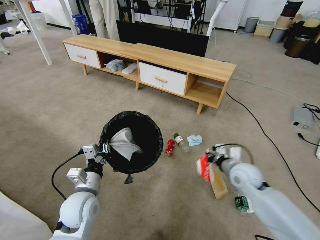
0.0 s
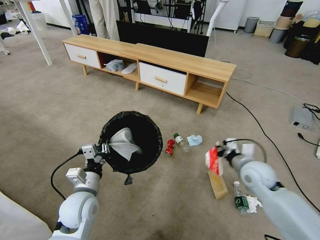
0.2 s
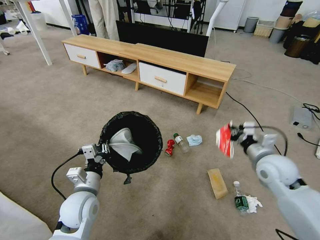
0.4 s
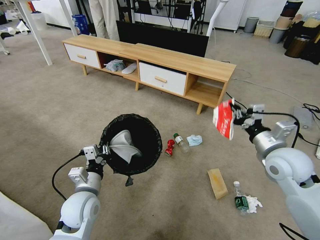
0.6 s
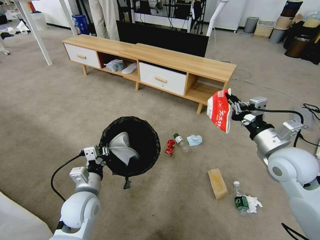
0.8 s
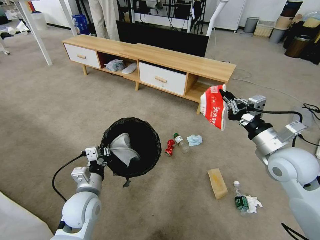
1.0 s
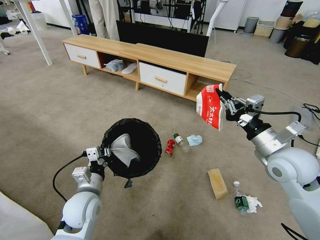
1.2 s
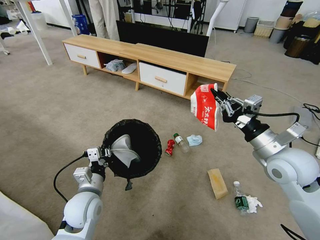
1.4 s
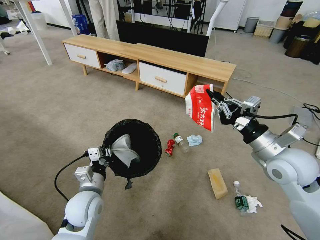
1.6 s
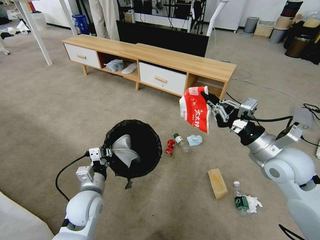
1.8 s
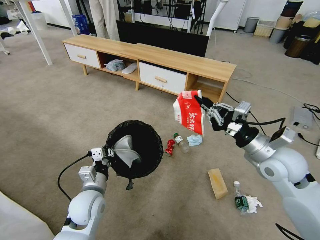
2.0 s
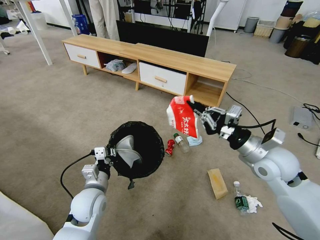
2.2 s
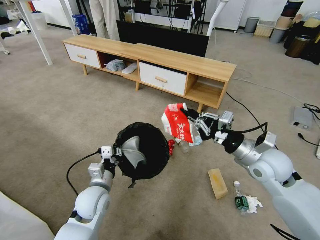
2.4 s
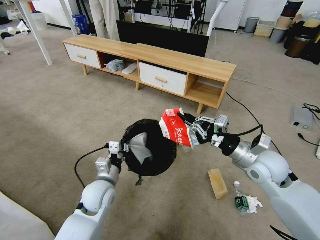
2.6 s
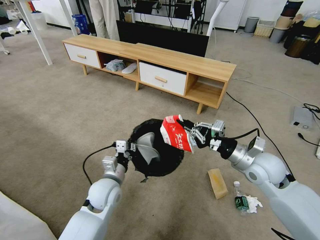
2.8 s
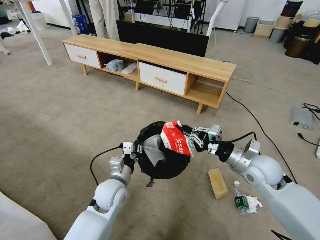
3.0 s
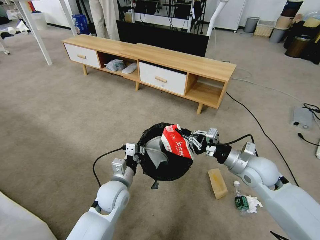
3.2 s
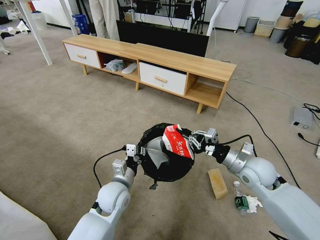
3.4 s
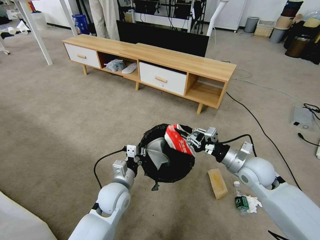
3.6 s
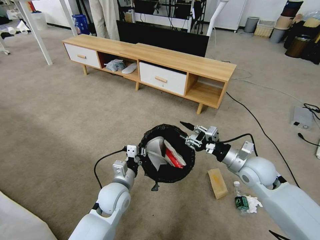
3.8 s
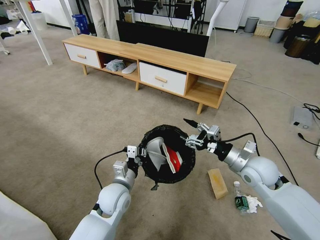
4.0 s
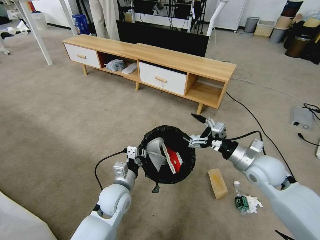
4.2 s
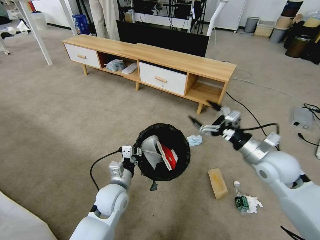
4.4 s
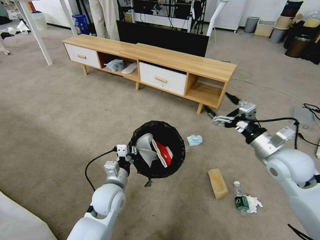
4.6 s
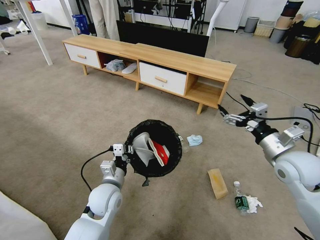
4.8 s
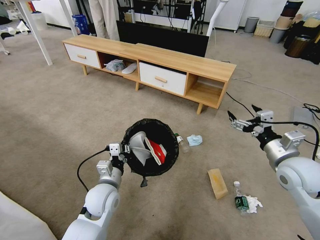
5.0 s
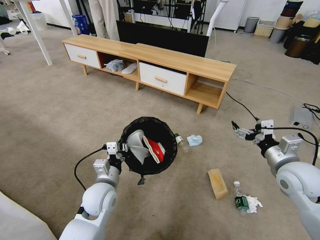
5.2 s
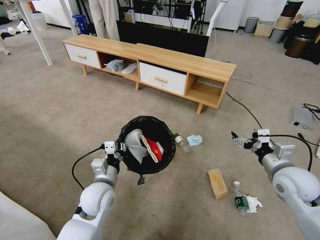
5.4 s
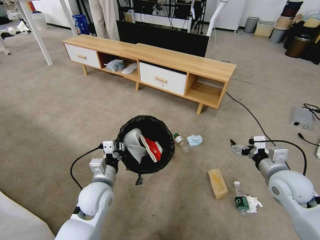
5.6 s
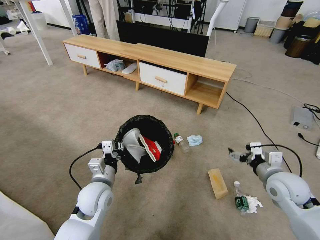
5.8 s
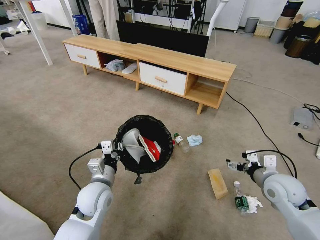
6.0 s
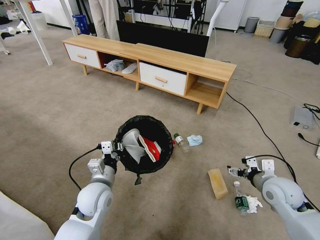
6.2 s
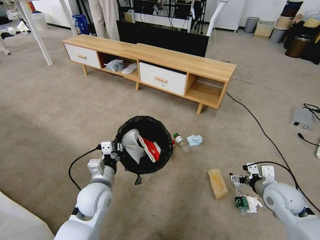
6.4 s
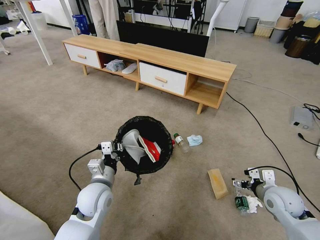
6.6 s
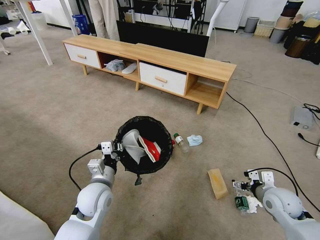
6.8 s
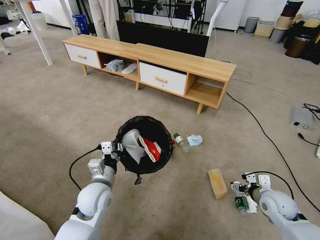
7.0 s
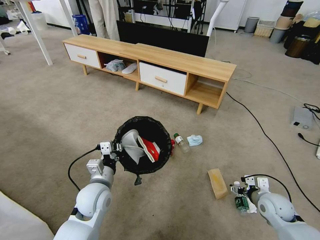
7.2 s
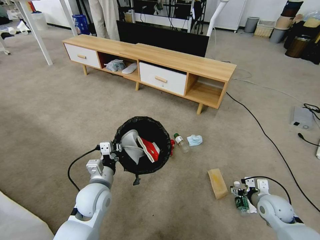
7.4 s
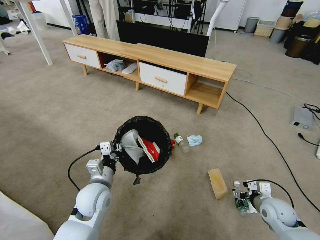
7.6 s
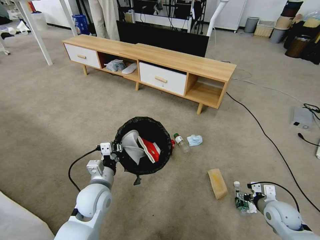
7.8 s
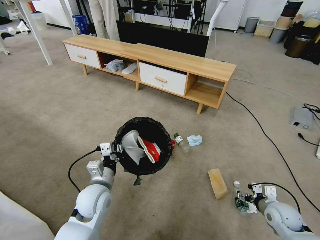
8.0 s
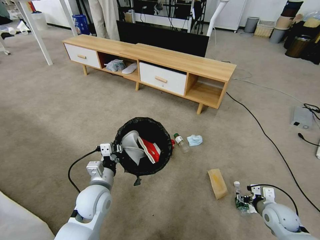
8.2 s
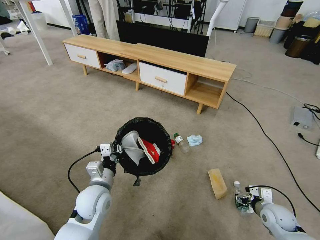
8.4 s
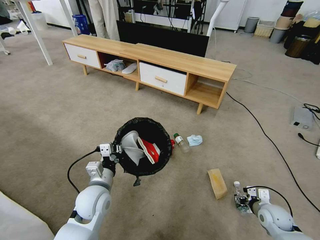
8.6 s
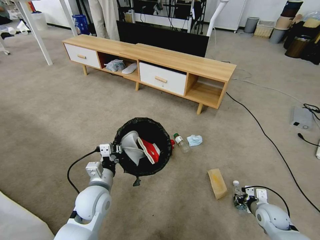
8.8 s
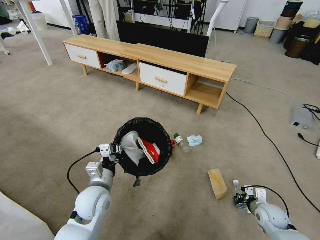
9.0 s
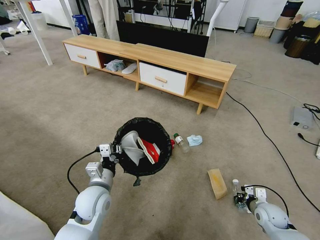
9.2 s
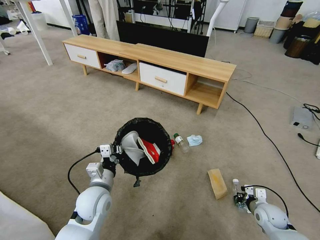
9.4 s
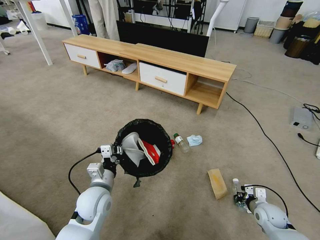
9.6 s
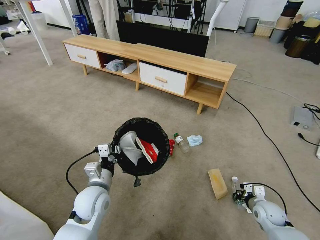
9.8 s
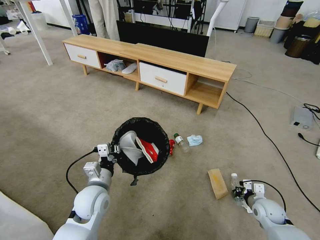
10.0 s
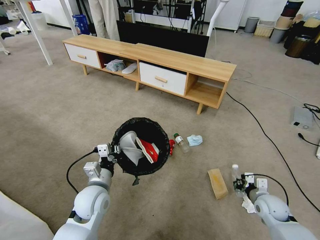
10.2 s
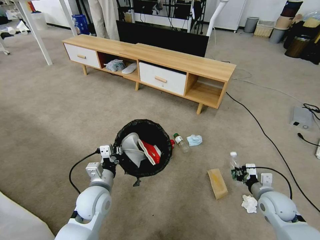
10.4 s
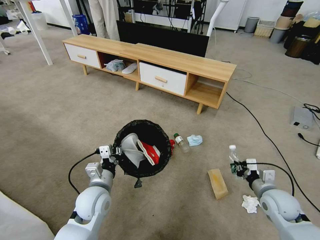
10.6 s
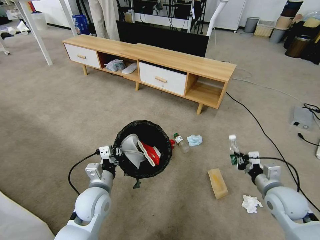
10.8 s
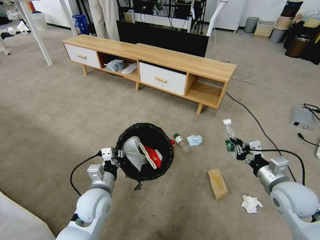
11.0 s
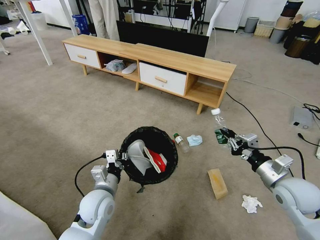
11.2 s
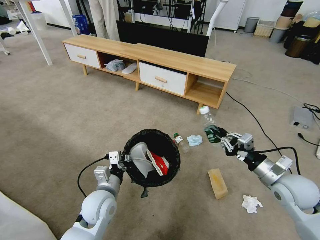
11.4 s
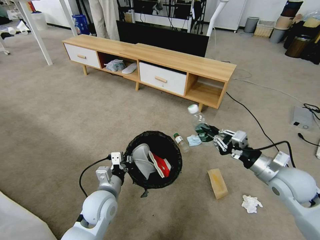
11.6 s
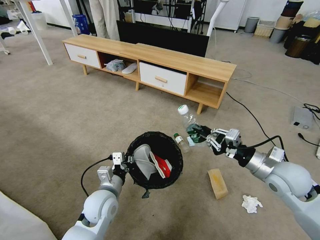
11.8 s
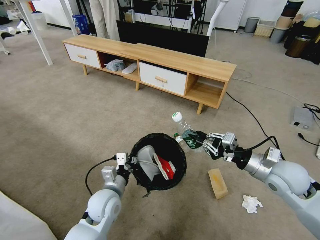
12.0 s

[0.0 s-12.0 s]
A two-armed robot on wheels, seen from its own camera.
Task of the whole recording: Pick up the trash bin and place the garbage on the floor into it.
0.0 to 1.6 s: The right gripper shifts roughly 15 cm upward.
1.6 to 3.0 s: The left gripper travels to the right by some 5 cm, while the right gripper goes about 10 cm downward.
3.0 to 4.4 s: The right gripper opens its fingers.
4.4 to 6.0 s: The right gripper moves downward, roughly 5 cm. Meanwhile the left gripper shifts by some 5 cm.
6.0 to 7.6 s: The right gripper moves downward, approximately 15 cm.
7.6 to 9.0 s: The right gripper shifts some 5 cm downward, and closes.
9.0 to 10.4 s: The right gripper goes approximately 5 cm upward.
10.4 to 12.0 s: The right gripper goes approximately 15 cm upward.

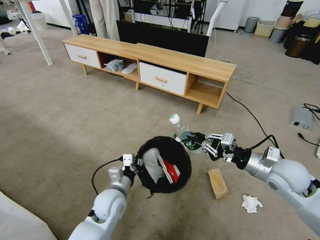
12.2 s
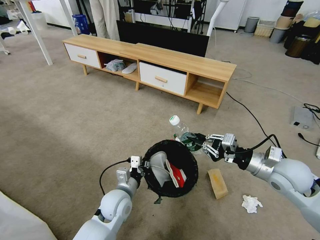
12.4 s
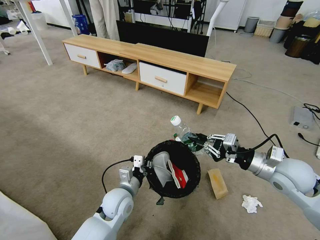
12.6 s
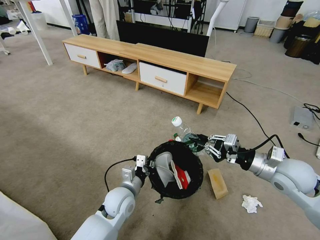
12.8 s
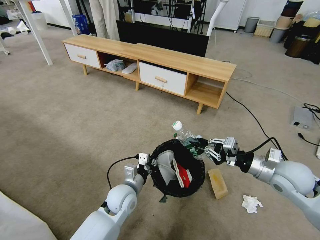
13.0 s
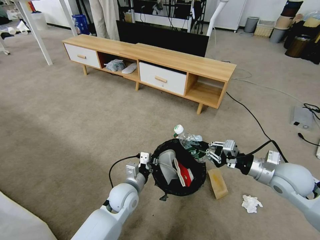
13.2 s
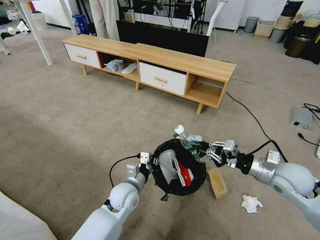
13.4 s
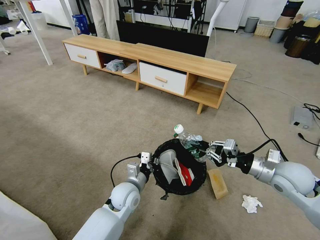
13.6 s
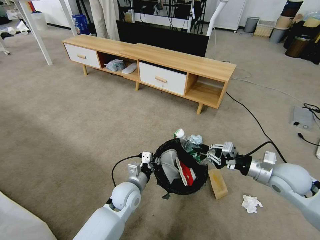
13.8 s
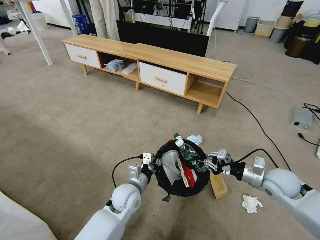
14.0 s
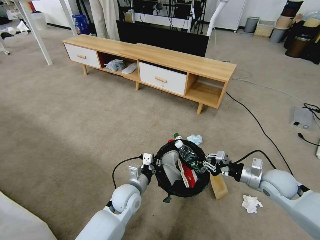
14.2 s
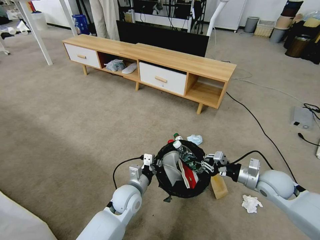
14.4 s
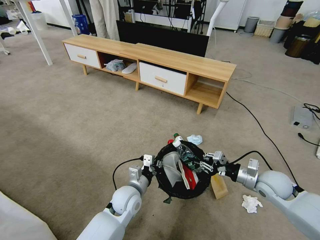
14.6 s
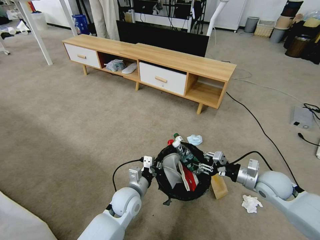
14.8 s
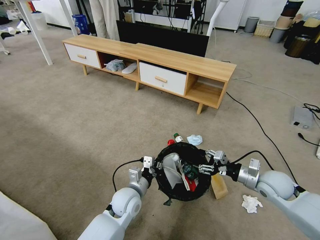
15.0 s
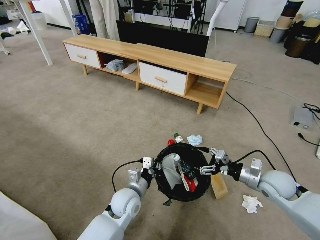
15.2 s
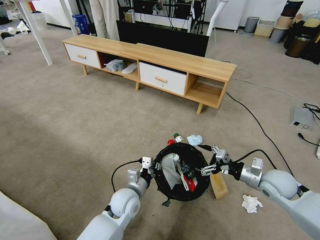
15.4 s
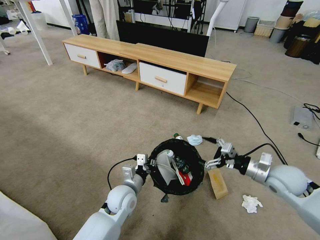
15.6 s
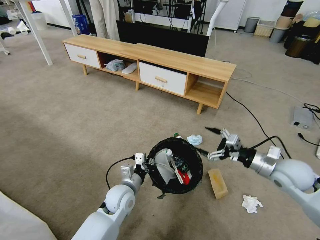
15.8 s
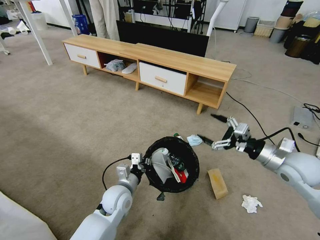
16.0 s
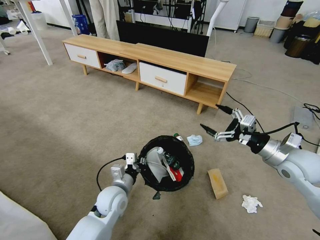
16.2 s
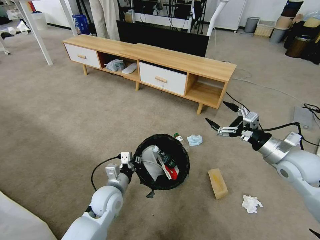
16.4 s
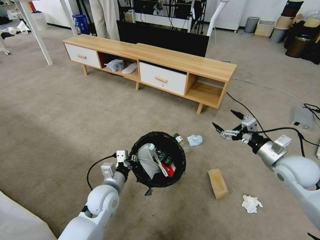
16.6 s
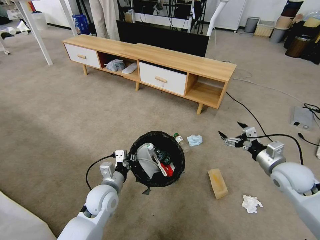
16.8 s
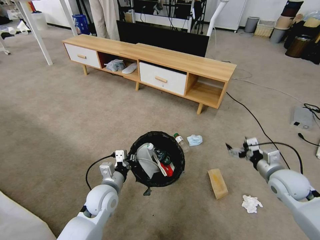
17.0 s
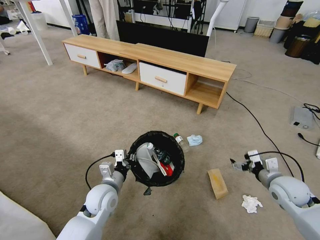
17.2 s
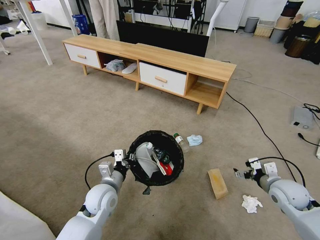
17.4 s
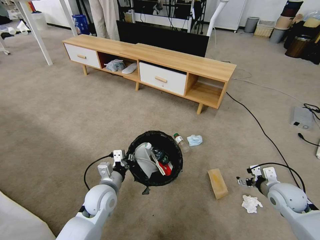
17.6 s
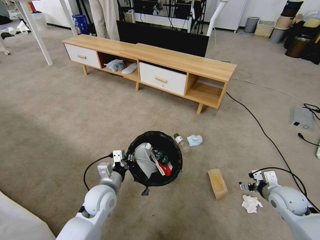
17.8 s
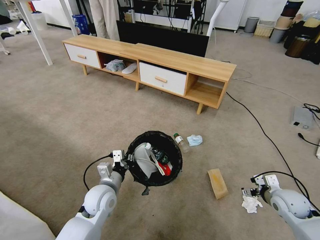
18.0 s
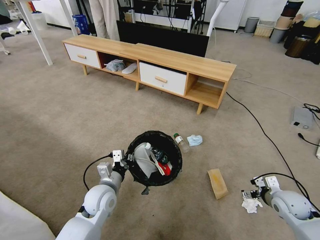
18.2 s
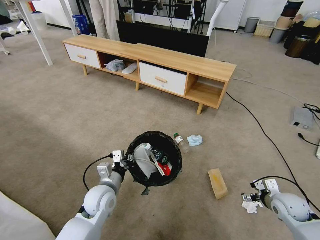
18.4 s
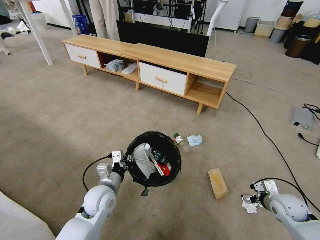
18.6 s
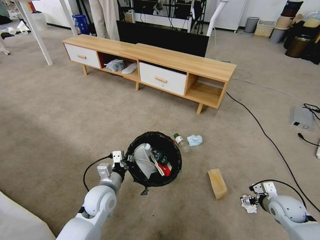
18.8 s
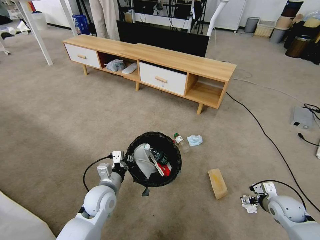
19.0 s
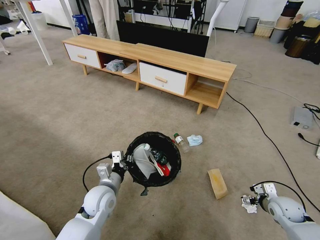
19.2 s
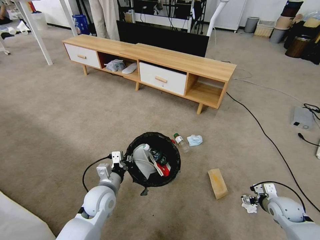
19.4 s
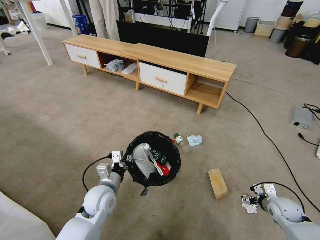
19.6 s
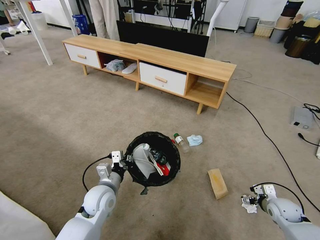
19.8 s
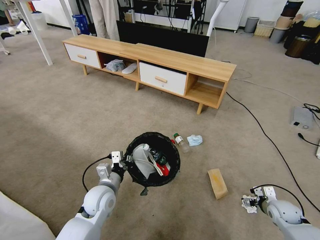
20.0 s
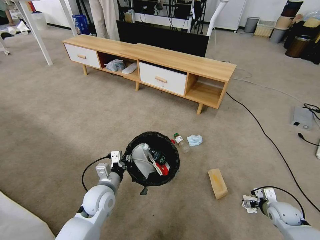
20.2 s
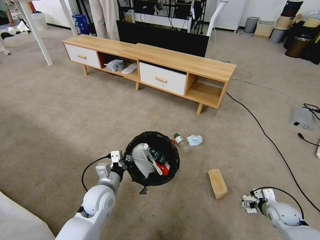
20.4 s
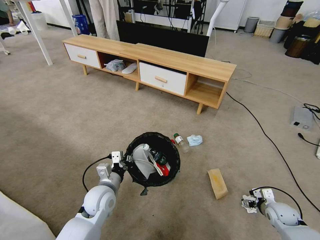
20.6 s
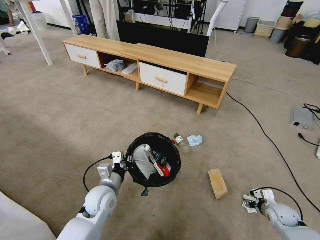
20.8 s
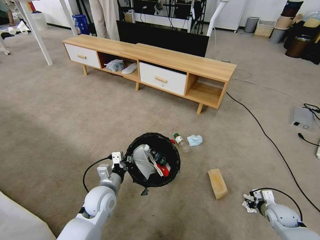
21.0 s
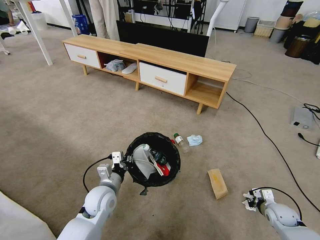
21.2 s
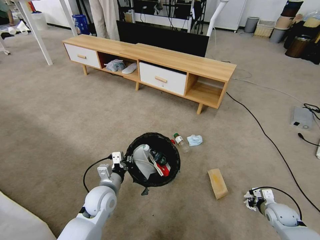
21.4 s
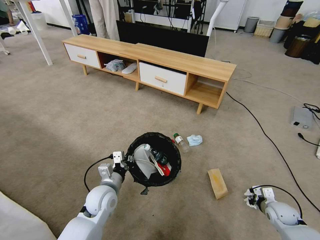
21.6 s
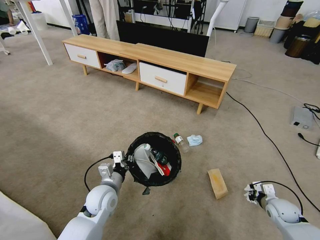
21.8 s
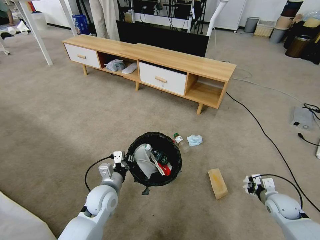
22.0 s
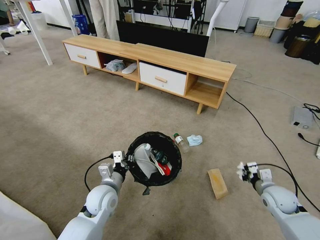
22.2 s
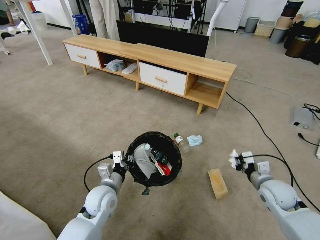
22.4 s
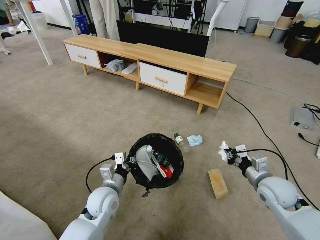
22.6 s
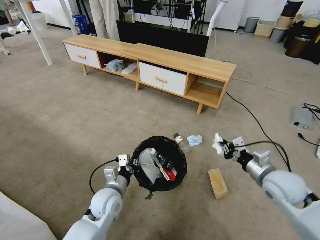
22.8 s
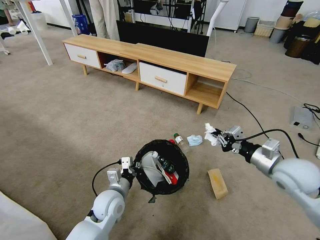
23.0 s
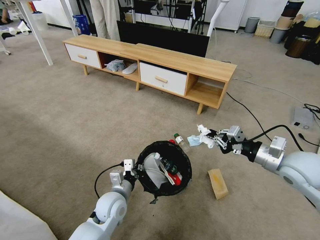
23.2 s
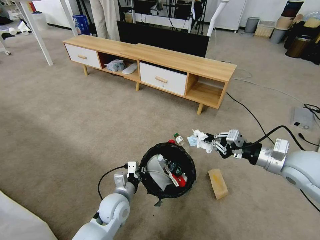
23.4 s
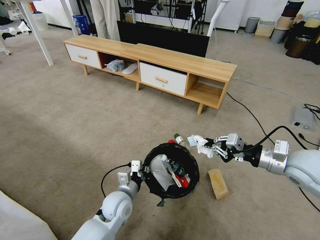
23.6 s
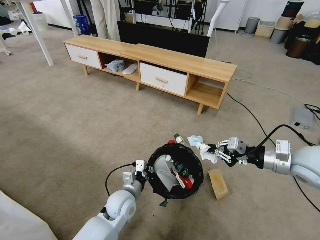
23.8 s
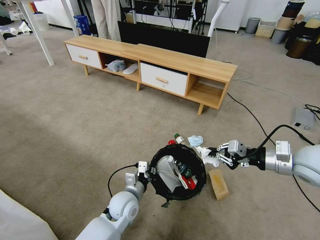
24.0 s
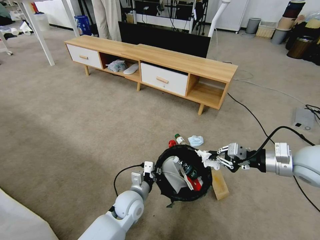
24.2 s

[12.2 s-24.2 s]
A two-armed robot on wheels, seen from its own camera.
Task of the whole recording: Pick up the trash bin and place the garbage on the floor into it.
12.2 to 13.8 s: The left gripper shifts by some 5 cm.
13.8 to 15.2 s: The right gripper shifts some 5 cm downward, and opens.
15.2 to 16.6 s: The left gripper shifts roughly 5 cm to the left, while the right gripper goes about 10 cm upward.
16.6 to 18.2 s: The right gripper shifts roughly 15 cm downward.
18.2 to 19.8 s: The right gripper moves downward, approximately 5 cm.
19.8 to 21.2 s: The right gripper closes up.
21.2 to 22.6 s: The right gripper heads upward and to the left, covering about 20 cm.
22.6 to 24.2 s: The right gripper shifts some 15 cm upward, while the left gripper heads to the right, covering approximately 10 cm.
